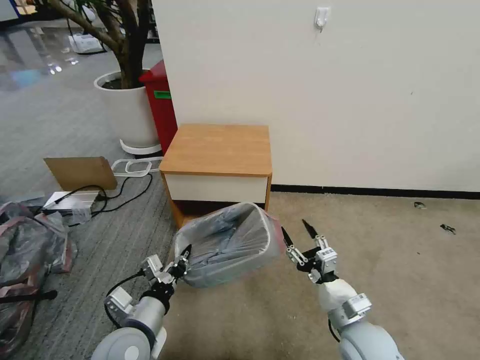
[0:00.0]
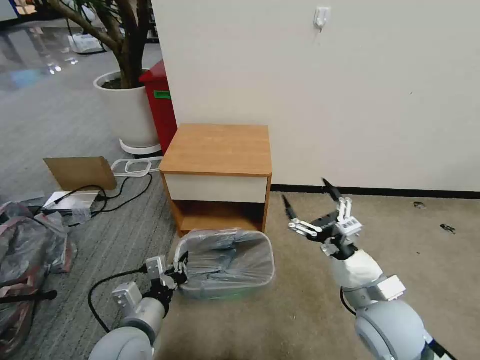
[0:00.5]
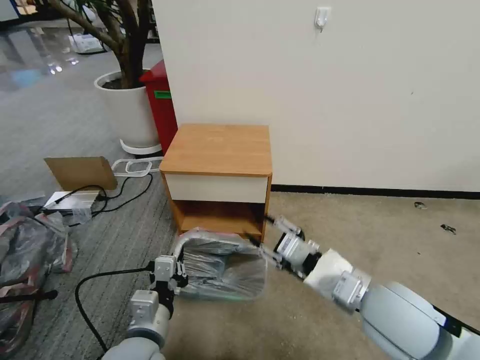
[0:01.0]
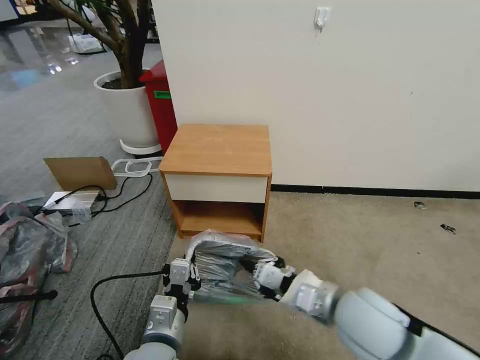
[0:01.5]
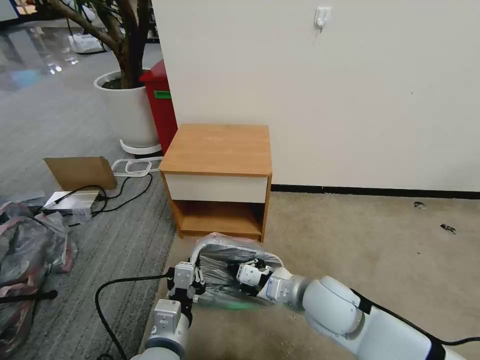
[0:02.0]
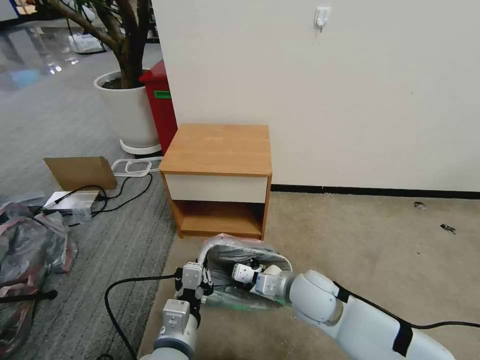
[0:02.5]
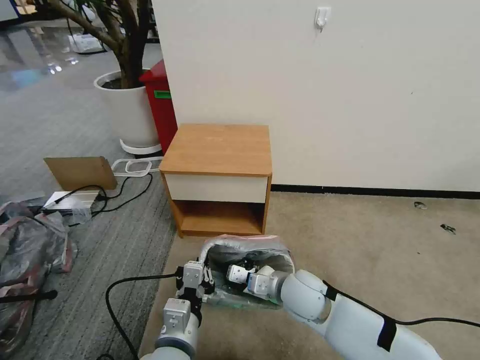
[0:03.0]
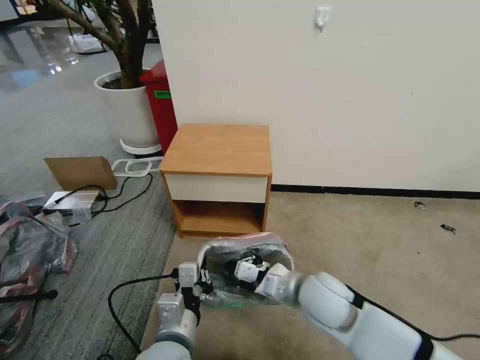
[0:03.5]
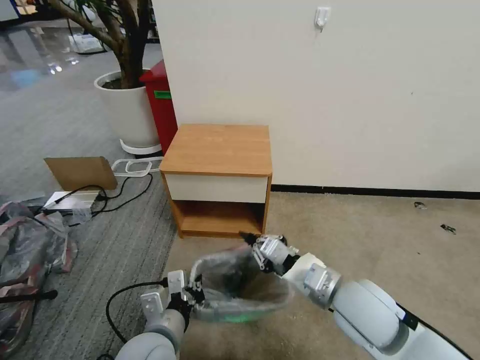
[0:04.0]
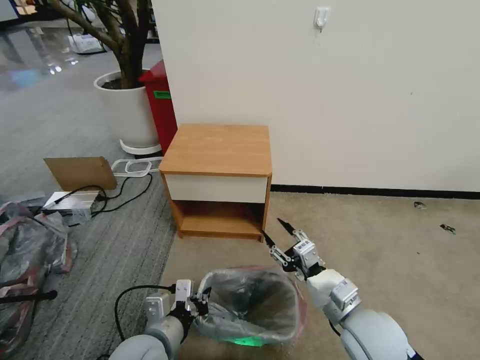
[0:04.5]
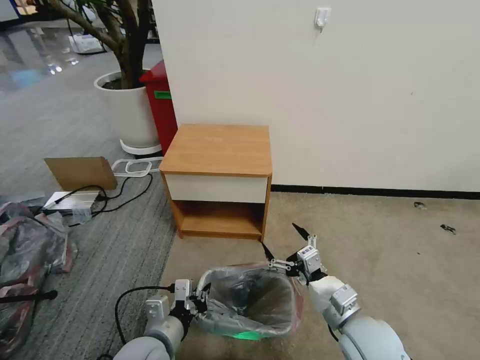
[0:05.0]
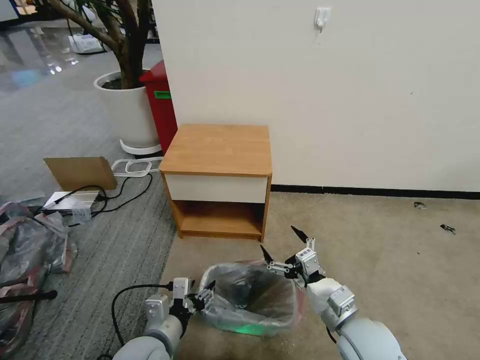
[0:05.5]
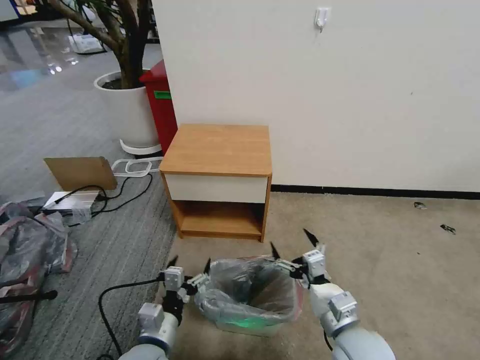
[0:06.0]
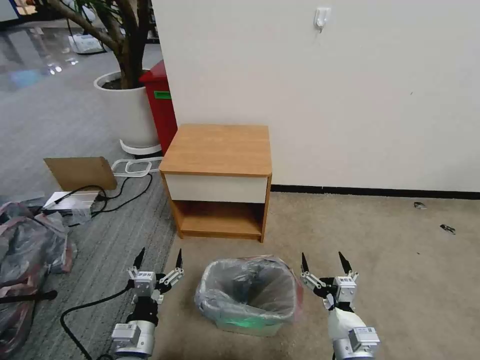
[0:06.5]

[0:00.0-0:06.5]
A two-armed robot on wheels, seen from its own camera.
Task of the whole recording: Pick up the garbage bag from the table and place it over the trash can.
0:00.0 to 0:02.0: The right gripper heads to the left, upward and forward, covering about 10 cm, and closes its fingers; the left gripper moves to the right, some 10 cm.
0:02.0 to 0:04.5: The right gripper goes up and down, roughly 10 cm each way, reversing 2 times, and opens its fingers.
0:04.5 to 0:06.5: The left gripper shifts approximately 5 cm downward, and opens up, while the right gripper travels downward and backward by about 10 cm, and opens its fingers.
